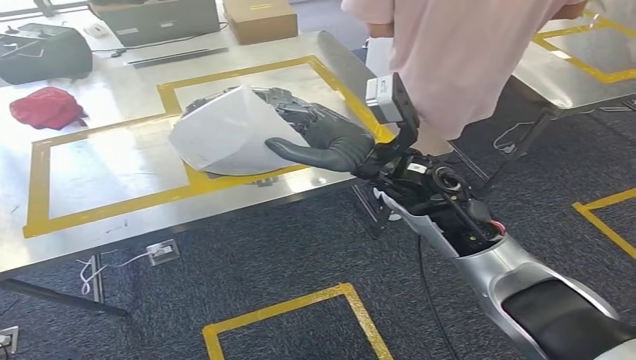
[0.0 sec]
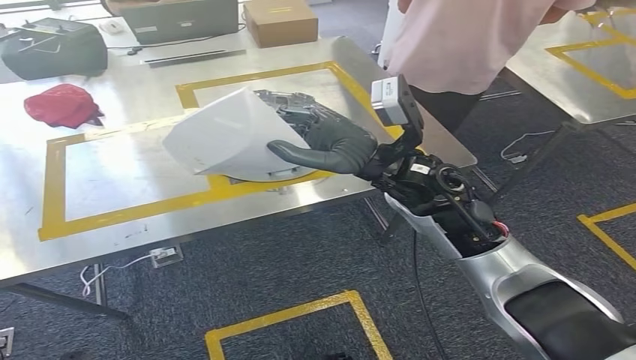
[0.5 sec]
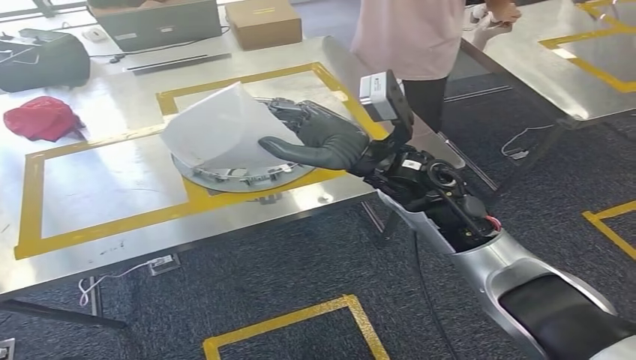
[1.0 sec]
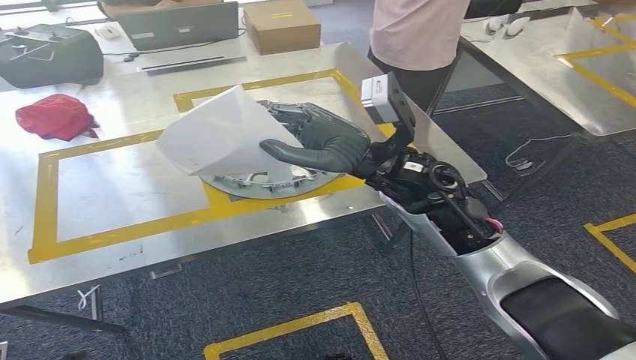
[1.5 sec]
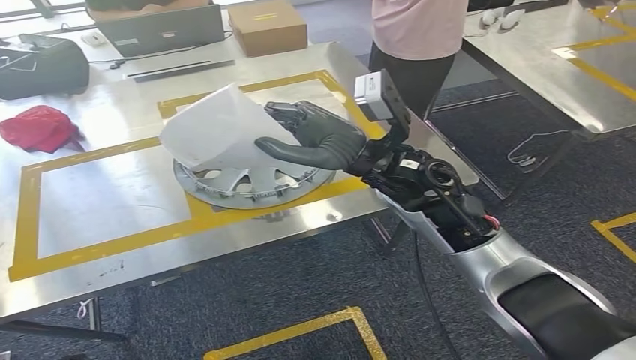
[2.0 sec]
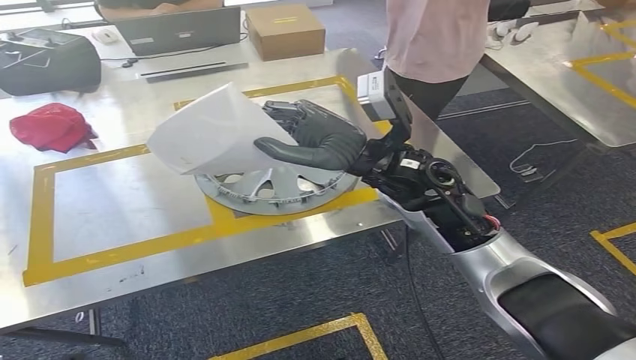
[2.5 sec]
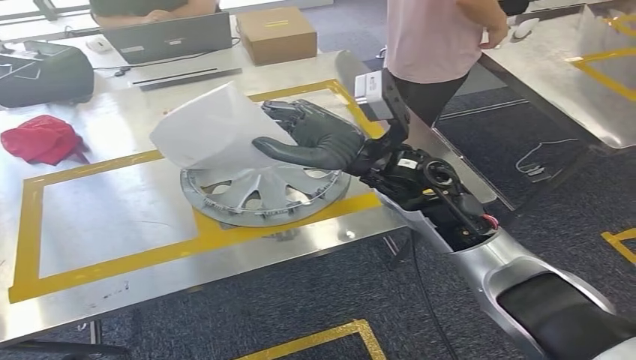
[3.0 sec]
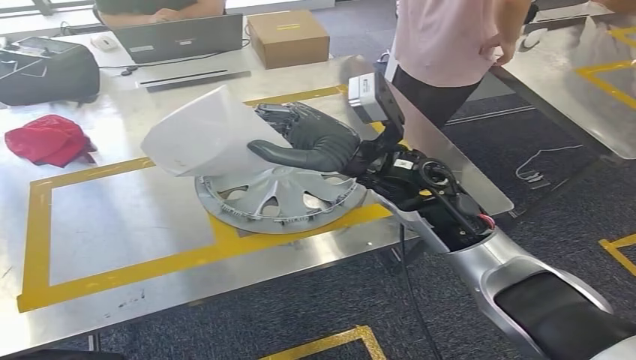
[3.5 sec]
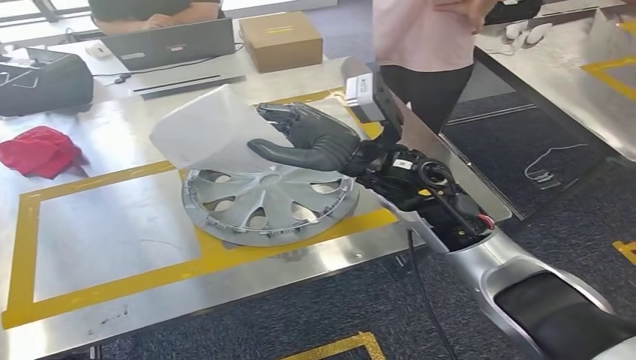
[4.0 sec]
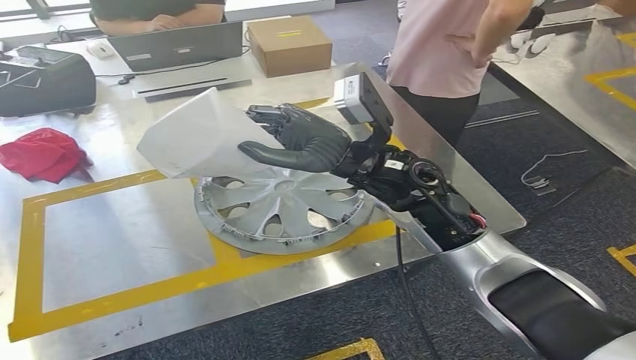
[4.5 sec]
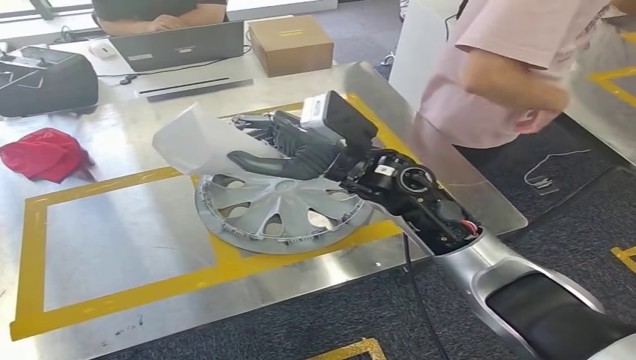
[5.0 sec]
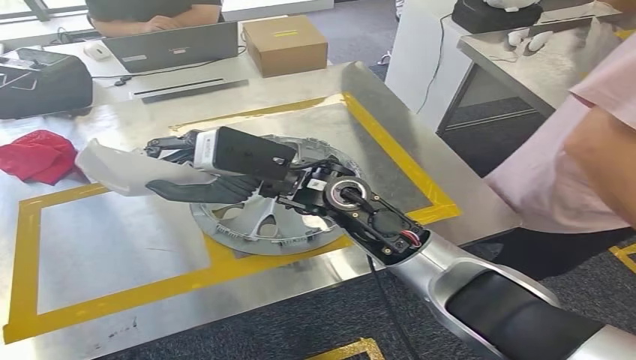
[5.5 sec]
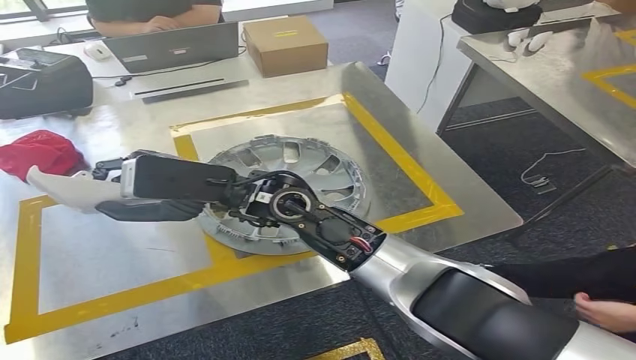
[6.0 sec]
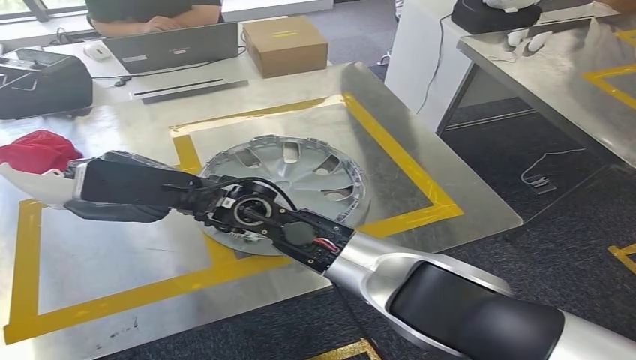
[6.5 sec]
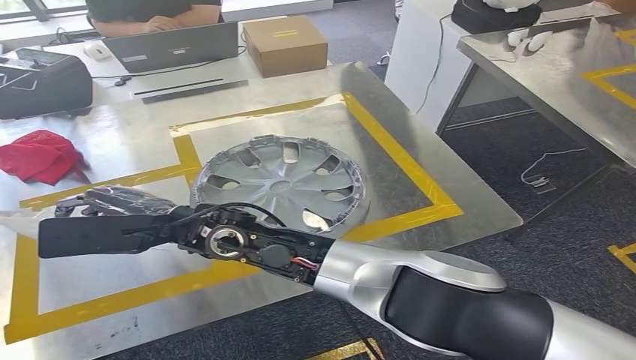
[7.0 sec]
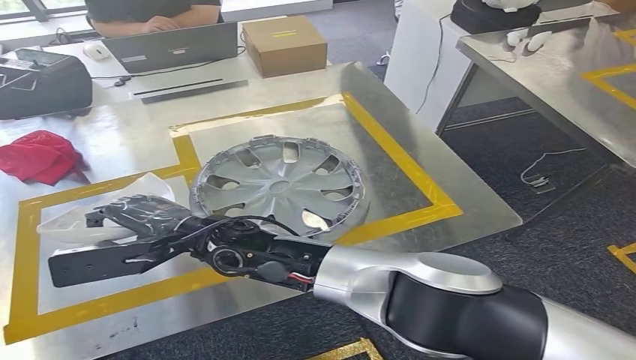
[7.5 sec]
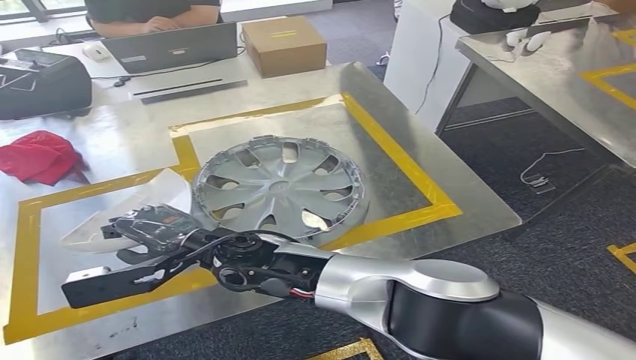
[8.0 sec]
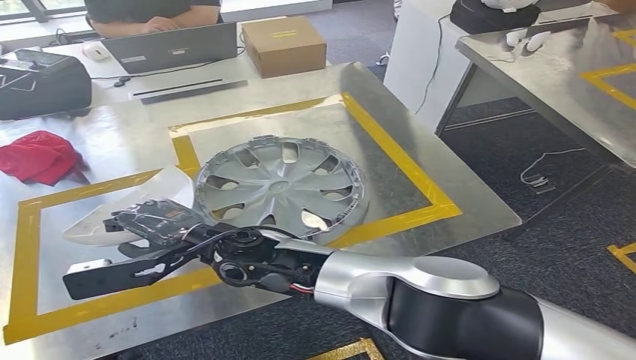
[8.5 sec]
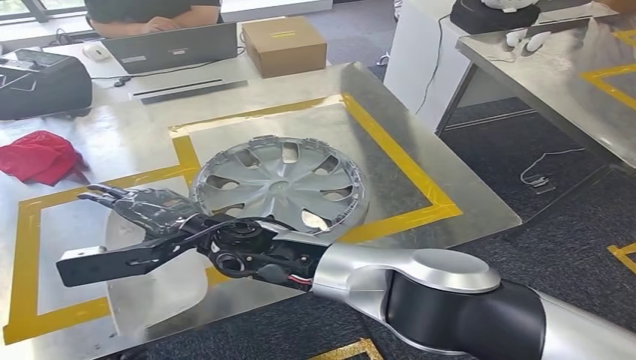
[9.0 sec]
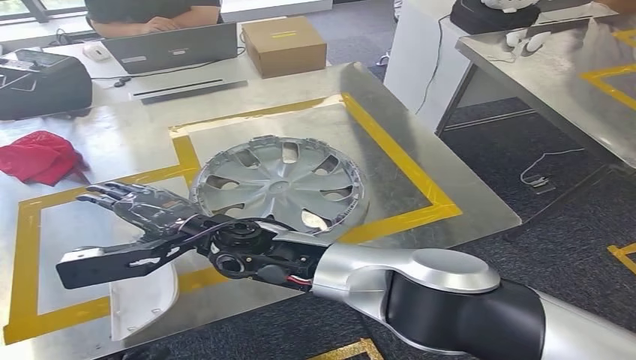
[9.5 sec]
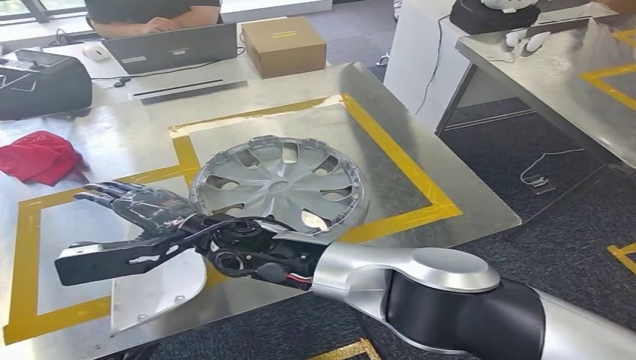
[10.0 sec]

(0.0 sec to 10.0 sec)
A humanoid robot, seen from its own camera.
Step, 1.5 sec - 10.0 sec: Insert the small parts into the corresponding holes on the workbench.
8.0 sec - 10.0 sec: The hands make only small movements.
